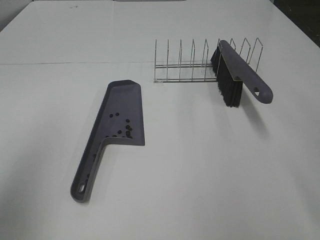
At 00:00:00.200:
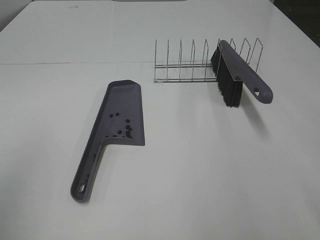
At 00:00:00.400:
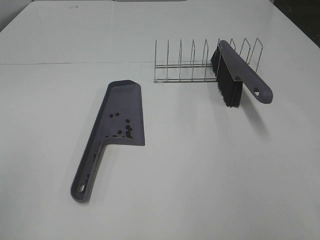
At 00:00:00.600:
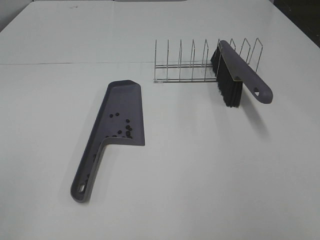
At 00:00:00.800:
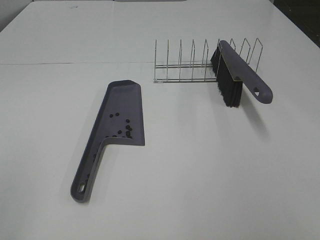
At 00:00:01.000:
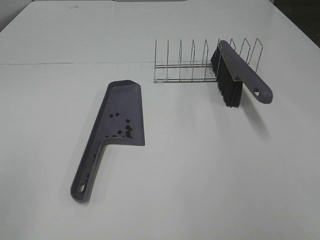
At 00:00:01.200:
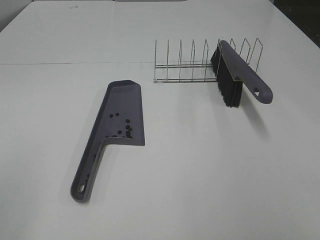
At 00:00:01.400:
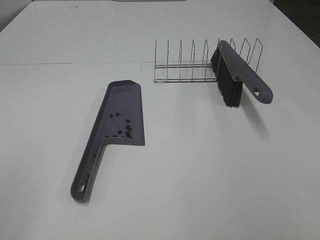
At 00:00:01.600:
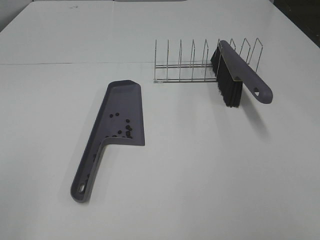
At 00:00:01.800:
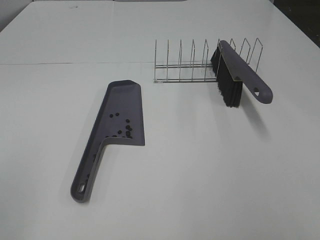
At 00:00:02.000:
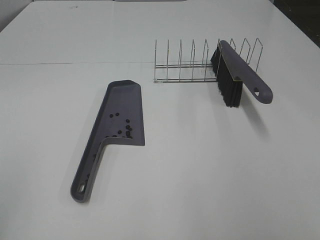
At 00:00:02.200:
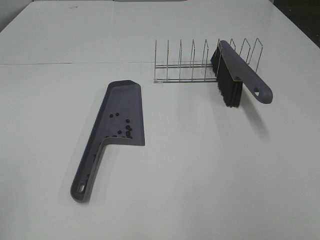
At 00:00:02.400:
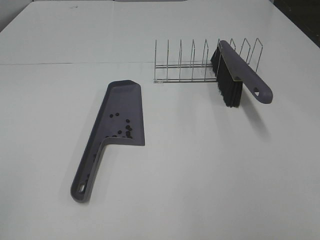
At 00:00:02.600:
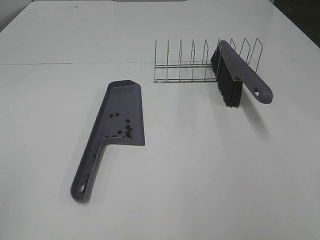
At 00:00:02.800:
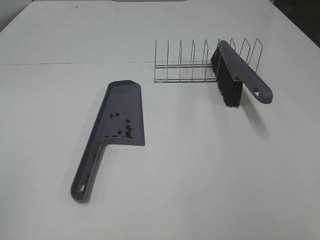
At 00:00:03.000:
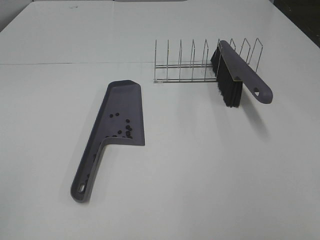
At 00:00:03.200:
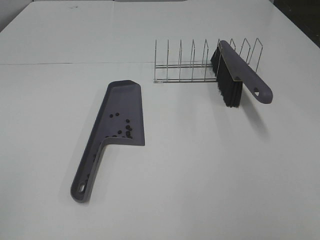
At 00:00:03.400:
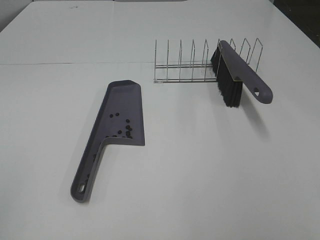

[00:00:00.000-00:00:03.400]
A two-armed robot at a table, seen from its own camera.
Task of the whole recording: Sweep Coffee Bean.
00:00:00.000 to 00:00:01.600: The left gripper heads backward, covering approximately 10 cm.
